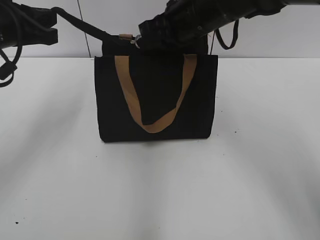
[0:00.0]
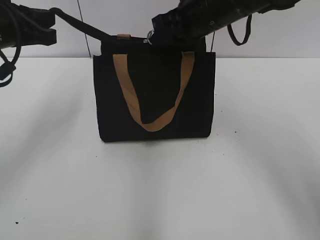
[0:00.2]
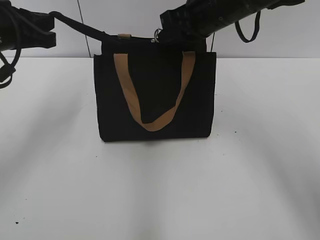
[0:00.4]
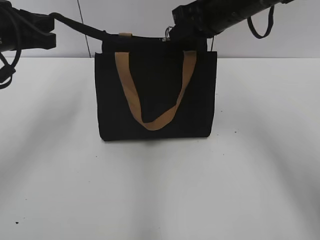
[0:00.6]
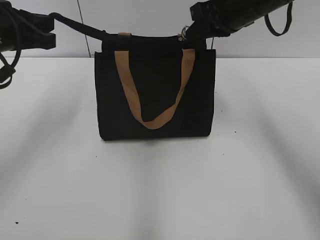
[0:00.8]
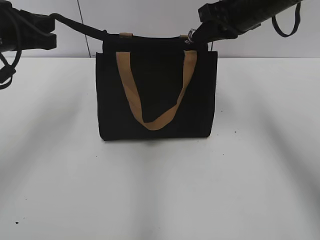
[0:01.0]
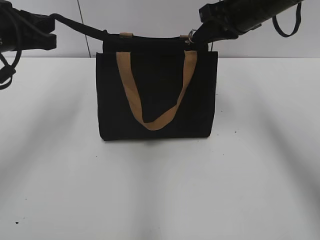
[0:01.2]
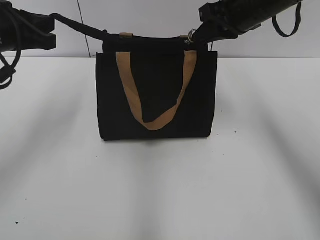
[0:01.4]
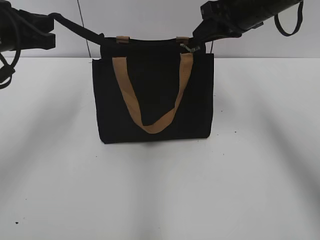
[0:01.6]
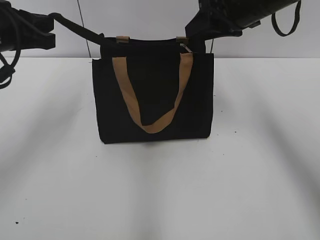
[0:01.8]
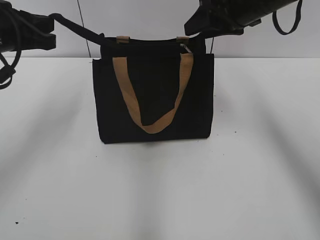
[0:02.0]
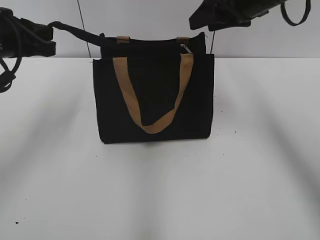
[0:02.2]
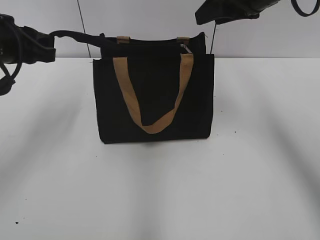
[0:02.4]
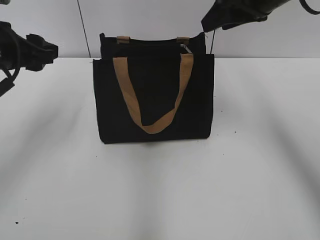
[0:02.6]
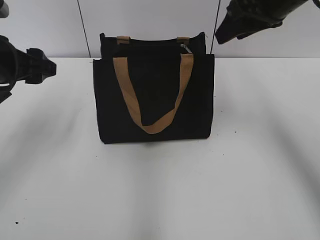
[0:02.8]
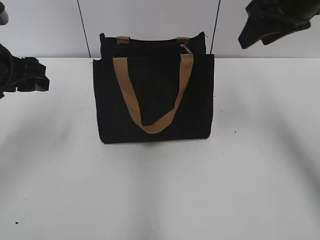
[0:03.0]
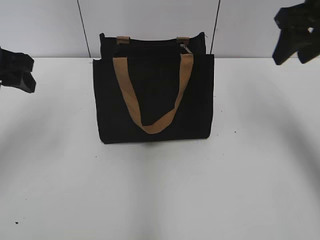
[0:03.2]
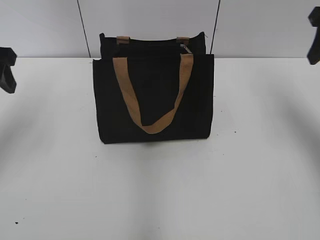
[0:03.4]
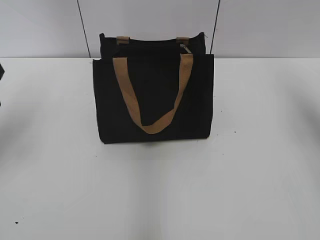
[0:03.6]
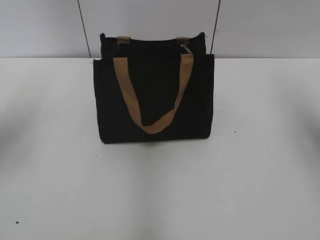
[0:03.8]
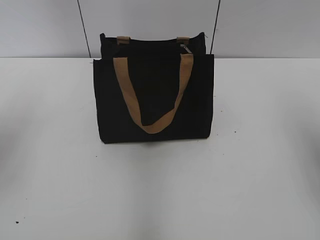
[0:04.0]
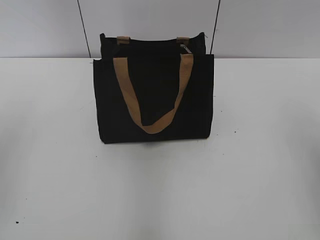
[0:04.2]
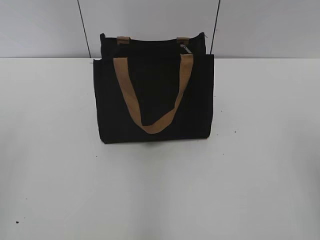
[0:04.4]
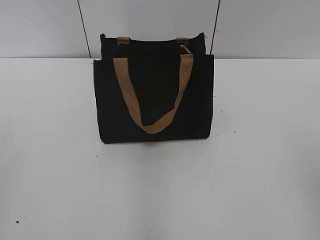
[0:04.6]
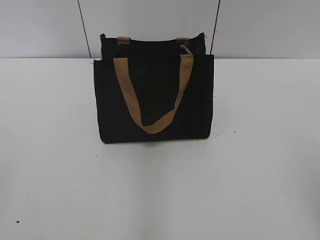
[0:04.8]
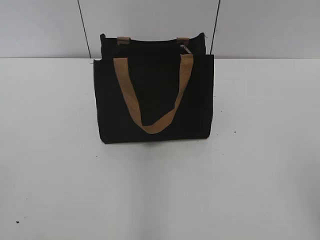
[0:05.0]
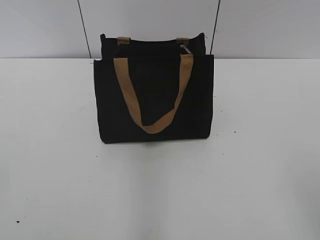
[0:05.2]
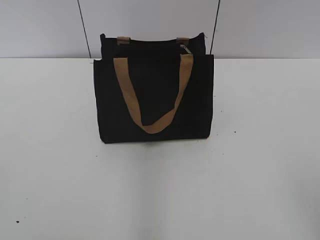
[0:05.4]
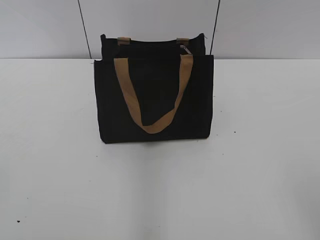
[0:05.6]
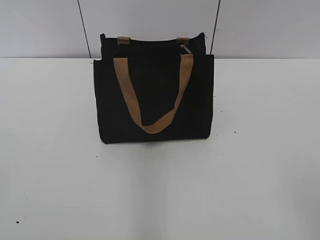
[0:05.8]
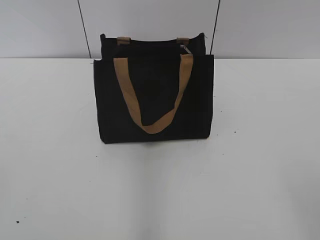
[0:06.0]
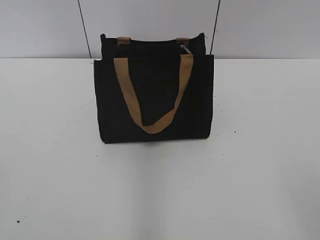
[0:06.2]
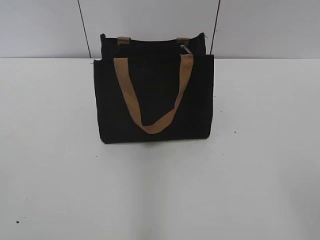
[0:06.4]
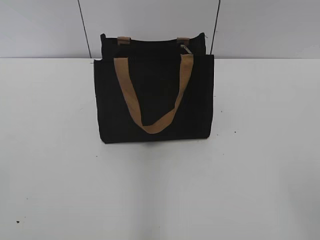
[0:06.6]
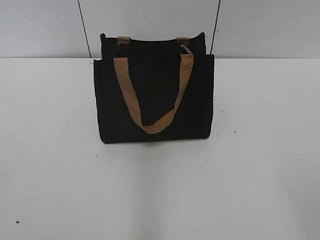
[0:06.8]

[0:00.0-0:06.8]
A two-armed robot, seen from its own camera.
Step, 0:01.8 to 0:02.4: Grab the zipper with your left hand.
0:00.0 to 0:01.4: The right gripper goes roughly 10 cm to the right.
0:01.4 to 0:02.8: The left gripper opens its fingers. The right gripper ends up about 5 cm from where it was, and opens.
0:02.8 to 0:04.0: The right gripper shifts approximately 20 cm to the right and backward; the left gripper goes approximately 5 cm to the left.
0:04.0 to 0:05.4: The grippers both shift backward by some 25 cm.
